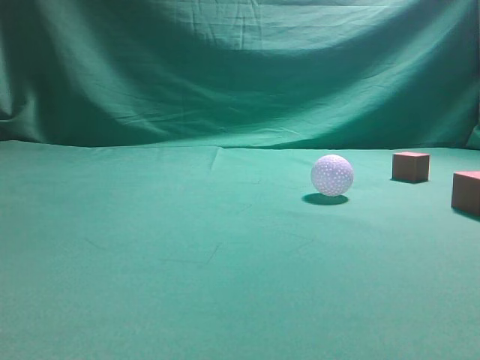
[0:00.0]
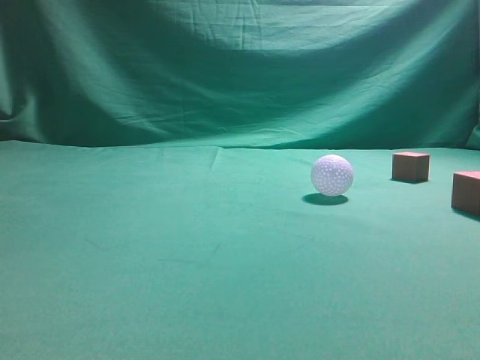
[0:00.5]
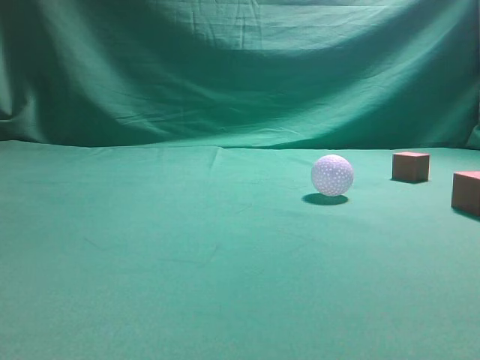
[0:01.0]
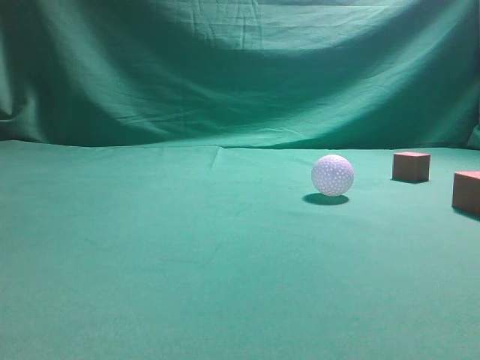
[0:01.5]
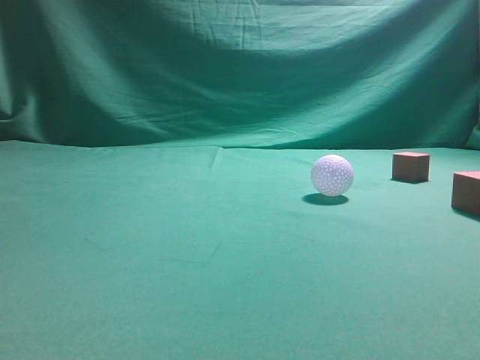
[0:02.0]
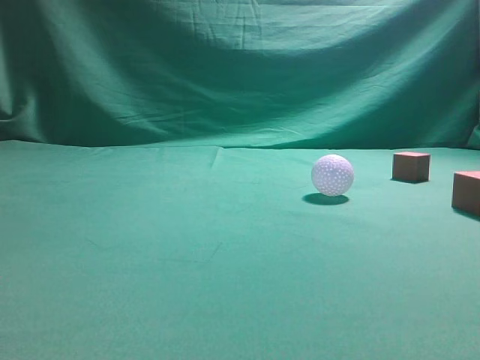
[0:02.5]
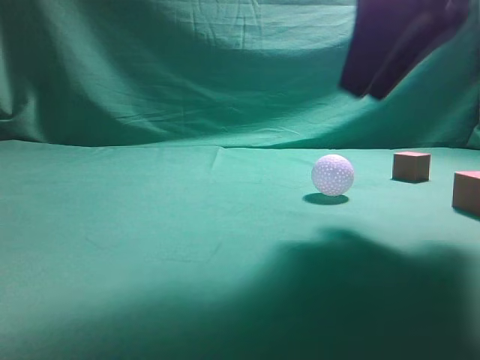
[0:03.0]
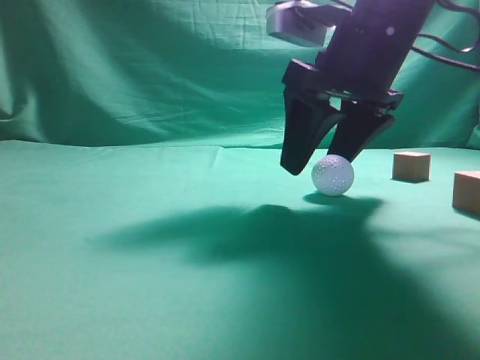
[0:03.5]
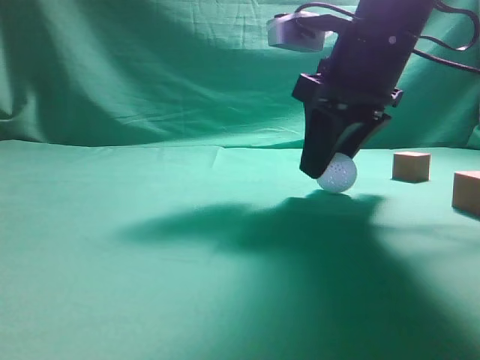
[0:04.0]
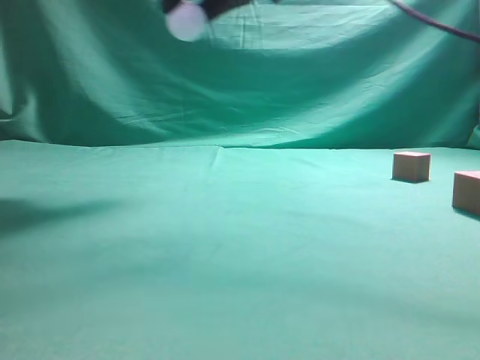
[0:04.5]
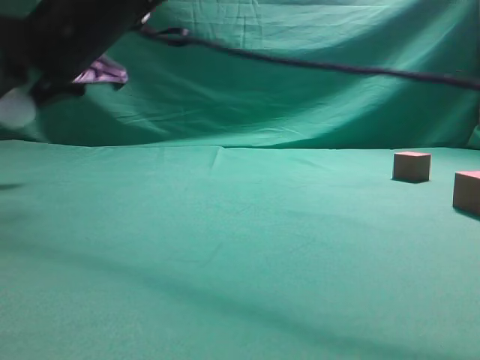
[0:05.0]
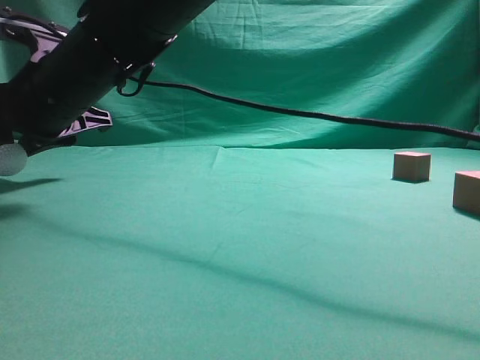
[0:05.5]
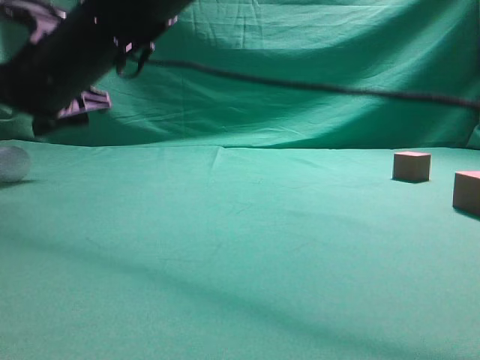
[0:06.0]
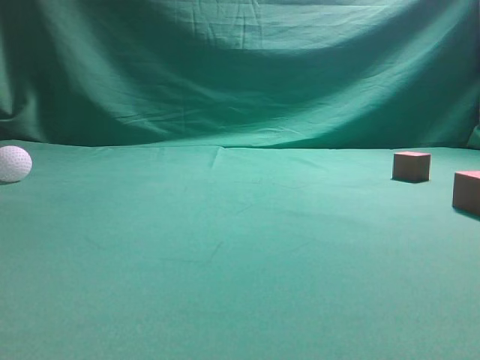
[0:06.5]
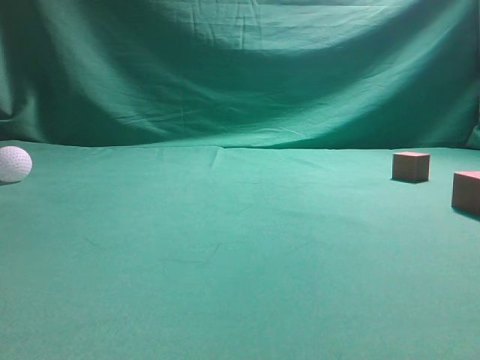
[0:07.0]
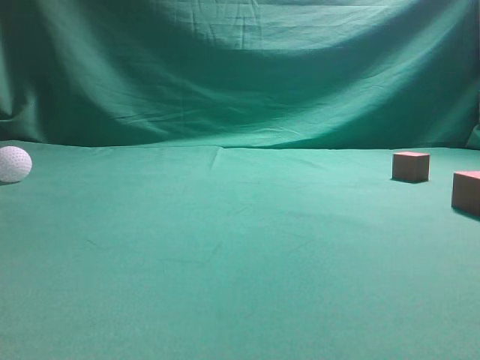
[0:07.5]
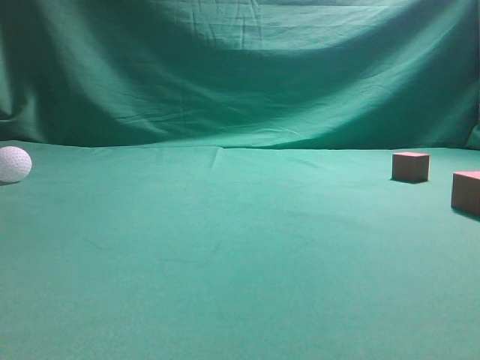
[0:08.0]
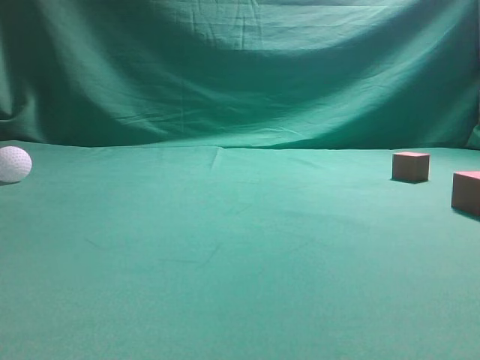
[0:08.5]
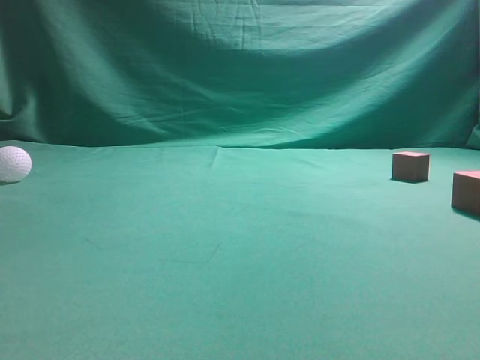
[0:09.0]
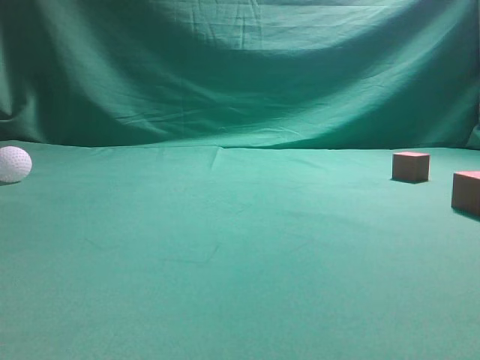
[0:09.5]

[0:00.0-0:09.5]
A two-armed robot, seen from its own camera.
Step, 0:00.0 to 0:04.0: Grasp the spherical object on the right side.
0:02.0 to 0:04.0: The right gripper is displaced forward, to the left and downward by roughly 35 cm, and opens up.
0:04.0 to 0:05.5: The right gripper is displaced to the left by some 30 cm.
0:05.5 to 0:07.5: The right gripper heads to the right, upward and backward, covering some 50 cm, and closes.
